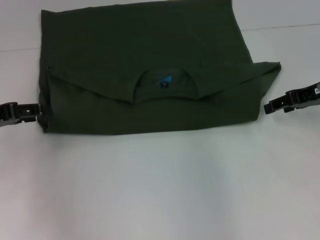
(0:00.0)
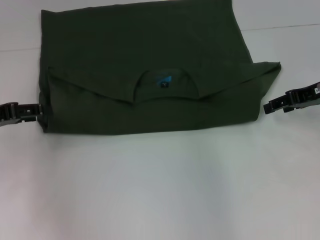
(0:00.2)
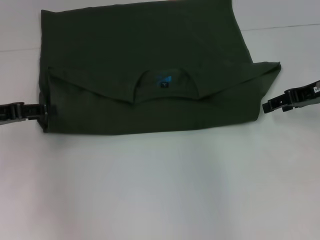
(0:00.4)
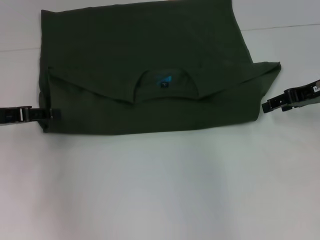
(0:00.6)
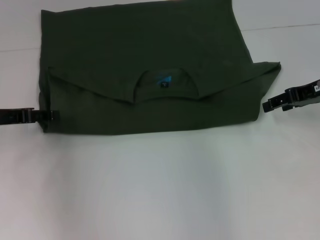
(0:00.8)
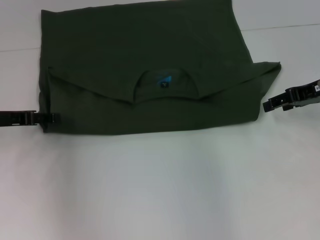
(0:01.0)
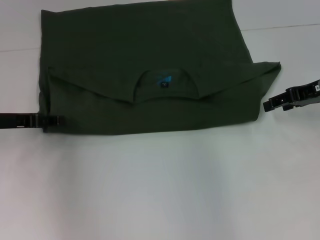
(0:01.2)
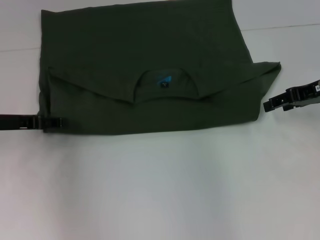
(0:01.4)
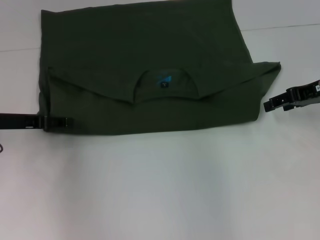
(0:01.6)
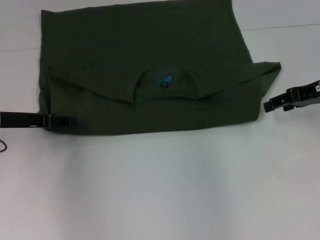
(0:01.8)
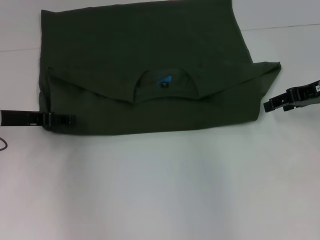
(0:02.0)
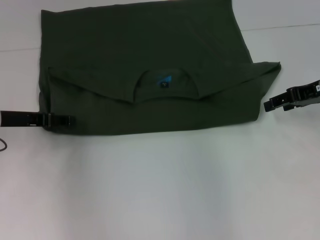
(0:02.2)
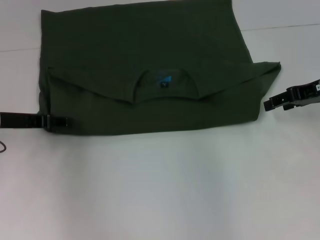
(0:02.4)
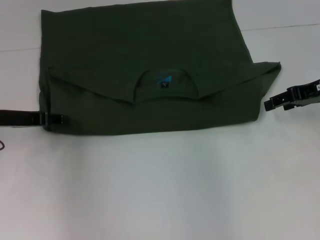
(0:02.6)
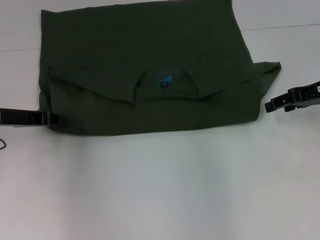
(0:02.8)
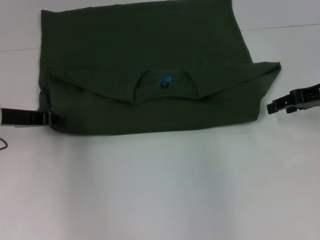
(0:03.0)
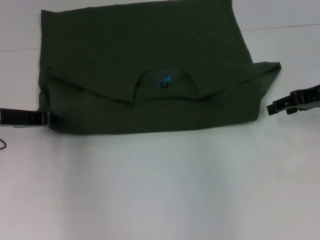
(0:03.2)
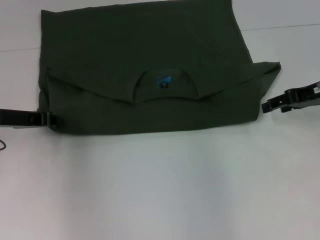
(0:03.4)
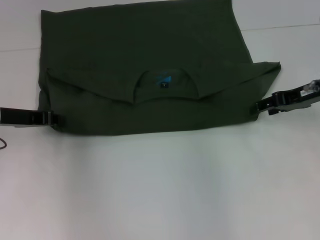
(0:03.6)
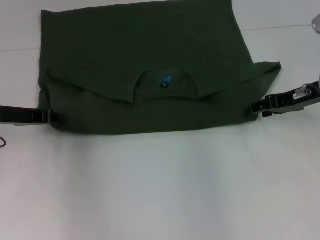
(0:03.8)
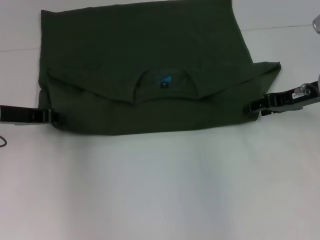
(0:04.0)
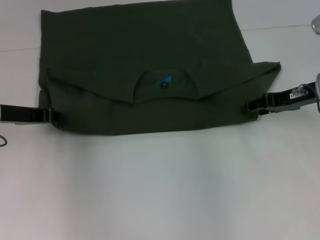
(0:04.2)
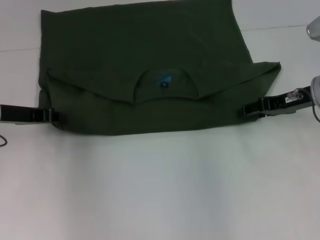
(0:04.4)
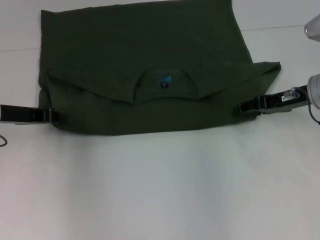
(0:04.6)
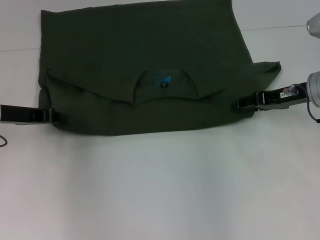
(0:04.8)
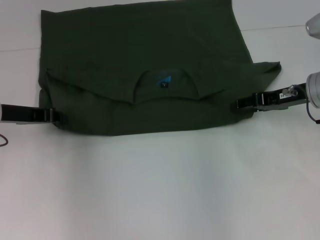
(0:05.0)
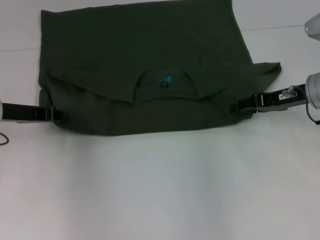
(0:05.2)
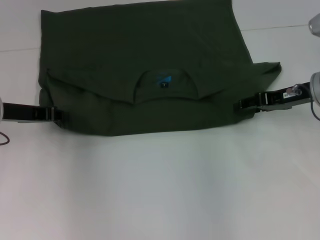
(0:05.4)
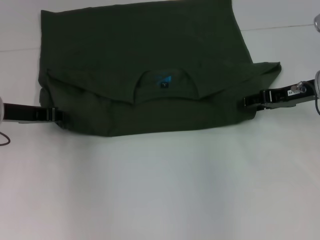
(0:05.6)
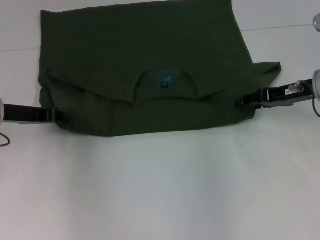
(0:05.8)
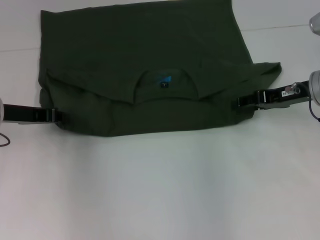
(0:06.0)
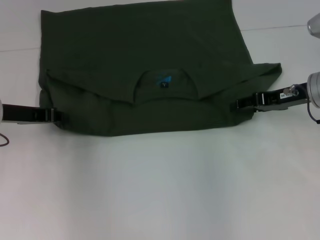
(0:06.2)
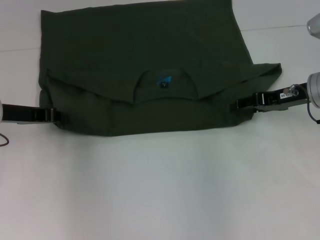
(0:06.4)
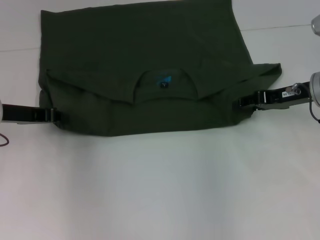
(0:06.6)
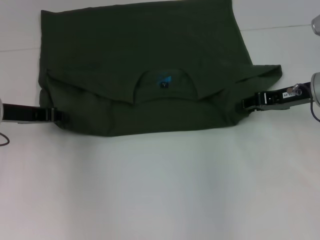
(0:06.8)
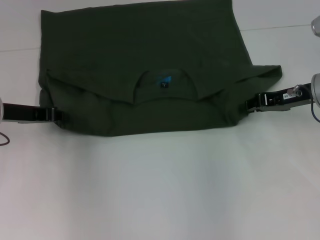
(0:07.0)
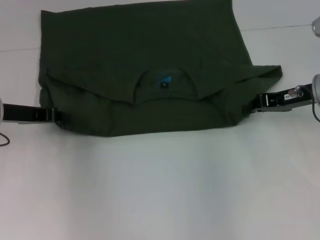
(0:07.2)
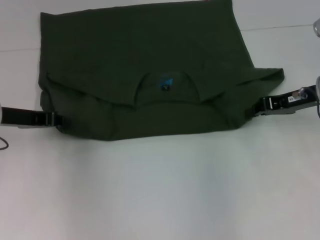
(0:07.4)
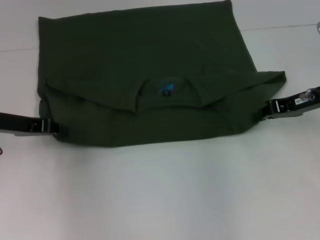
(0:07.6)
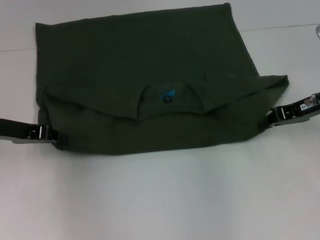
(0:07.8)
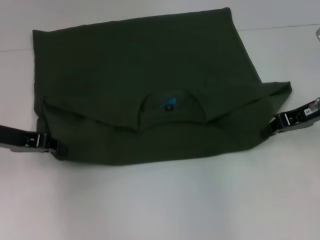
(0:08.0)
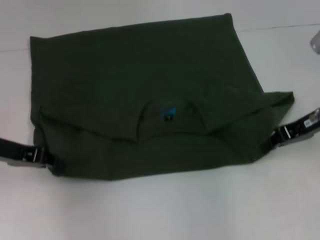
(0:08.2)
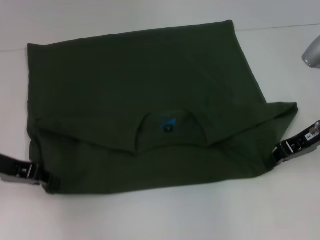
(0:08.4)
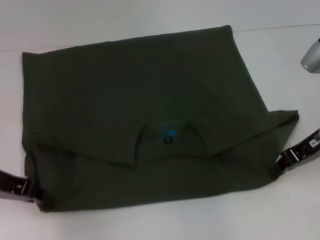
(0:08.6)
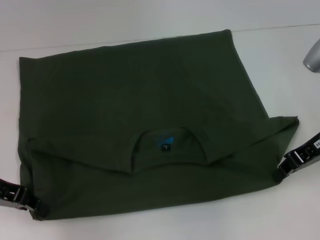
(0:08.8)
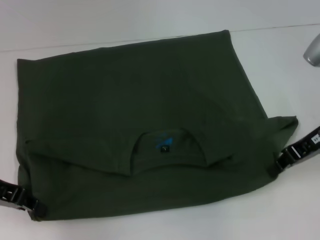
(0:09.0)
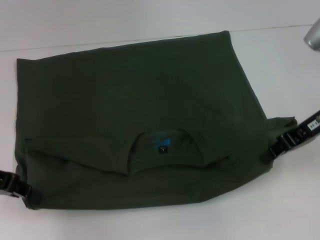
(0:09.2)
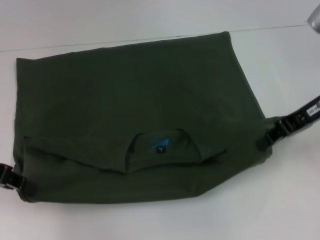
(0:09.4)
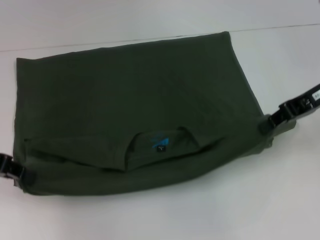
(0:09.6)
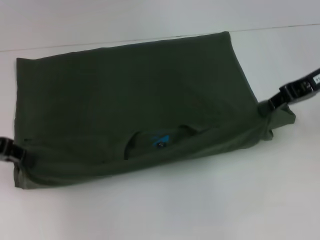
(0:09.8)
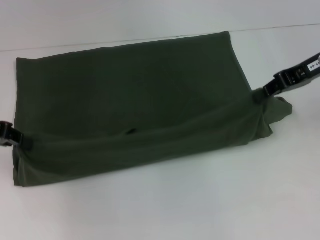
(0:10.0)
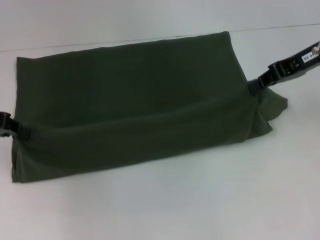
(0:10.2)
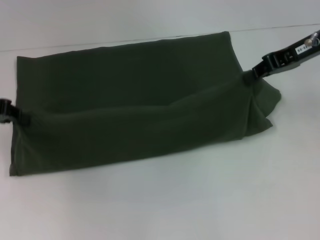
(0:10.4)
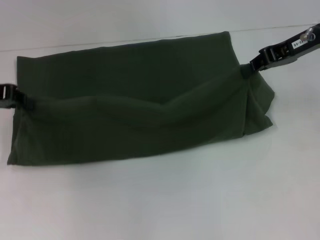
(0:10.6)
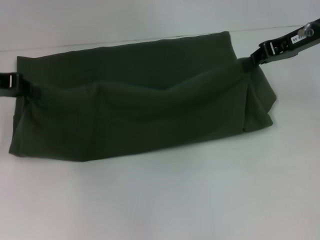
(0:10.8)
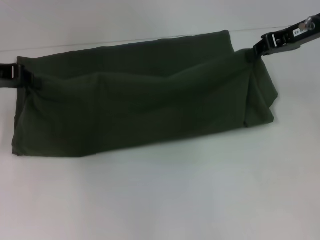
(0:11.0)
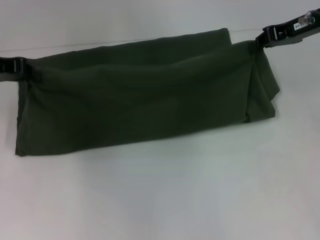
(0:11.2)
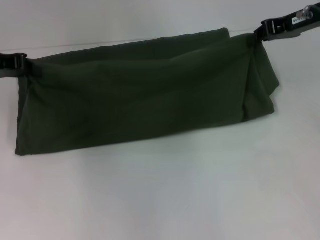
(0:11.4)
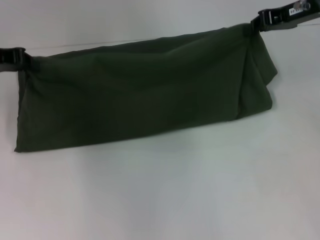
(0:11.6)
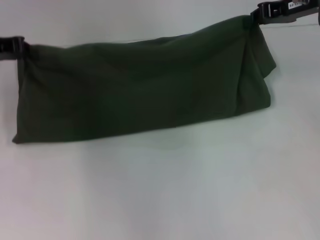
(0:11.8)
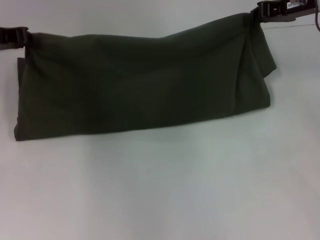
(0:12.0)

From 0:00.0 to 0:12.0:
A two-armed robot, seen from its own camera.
Step, from 0:00.0 to 0:09.2: Pull the clothes with your left hand.
Step, from 0:00.0 to 0:09.2: Pull the clothes with your right hand.
From 0:00.0 to 0:01.6: The left gripper changes place by about 5 cm.
From 0:01.6 to 0:03.0: The left gripper closes.
From 0:03.0 to 0:04.4: The right gripper changes place by some 5 cm.
From 0:04.4 to 0:06.0: Both grippers stay put.
From 0:06.0 to 0:07.6: The right gripper closes.
From 0:07.6 to 0:09.0: The left gripper goes about 5 cm backward.
From 0:09.0 to 0:10.4: The left gripper shifts approximately 5 cm forward. The right gripper moves upward and forward, some 10 cm.
From 0:10.4 to 0:12.0: The left gripper shifts about 5 cm forward.

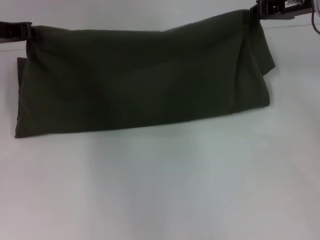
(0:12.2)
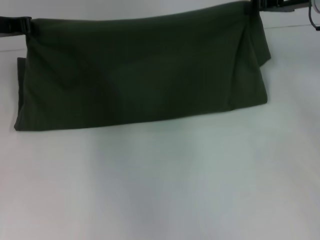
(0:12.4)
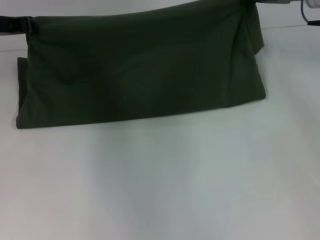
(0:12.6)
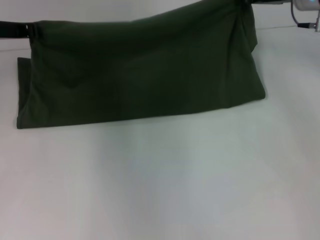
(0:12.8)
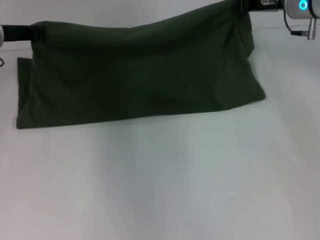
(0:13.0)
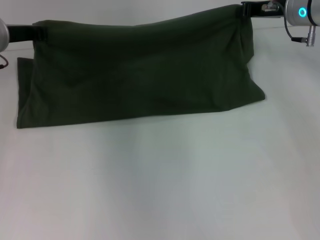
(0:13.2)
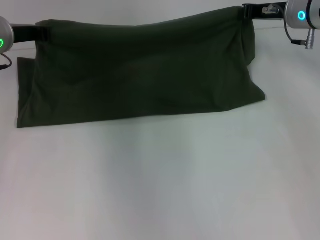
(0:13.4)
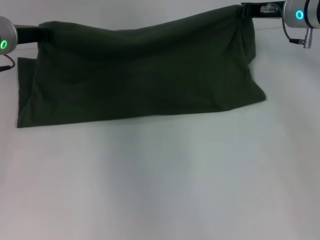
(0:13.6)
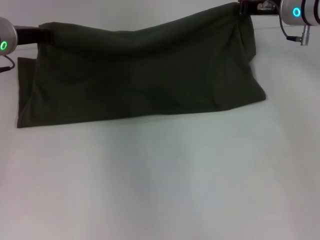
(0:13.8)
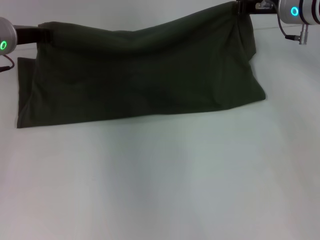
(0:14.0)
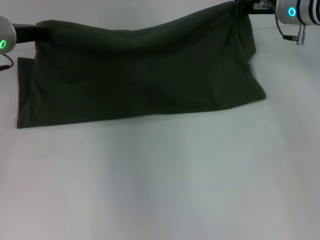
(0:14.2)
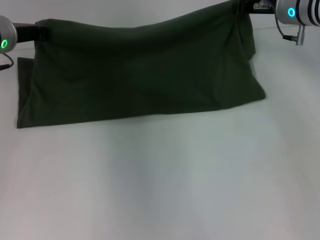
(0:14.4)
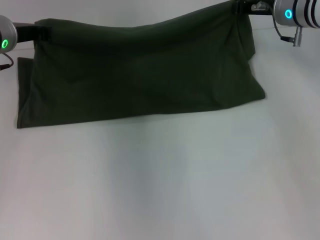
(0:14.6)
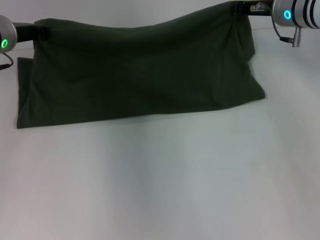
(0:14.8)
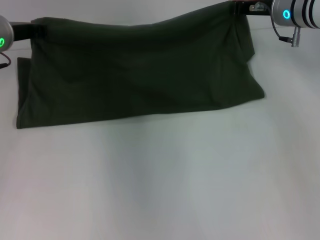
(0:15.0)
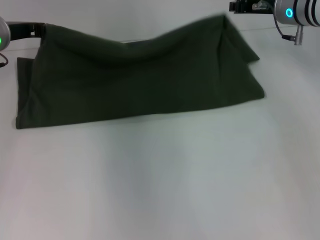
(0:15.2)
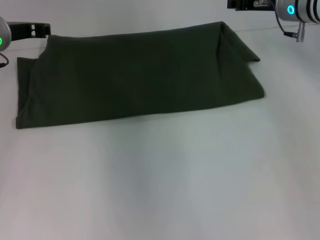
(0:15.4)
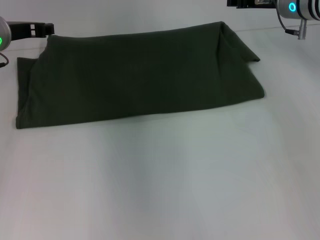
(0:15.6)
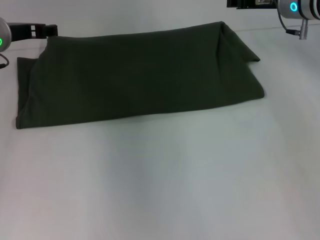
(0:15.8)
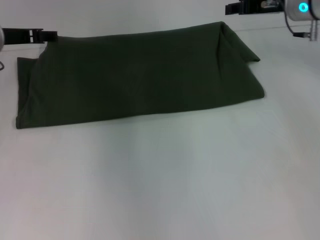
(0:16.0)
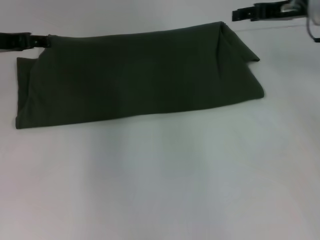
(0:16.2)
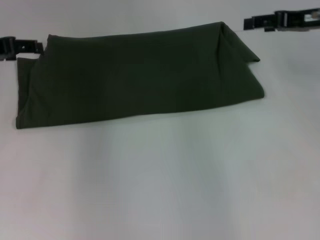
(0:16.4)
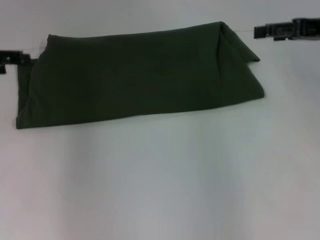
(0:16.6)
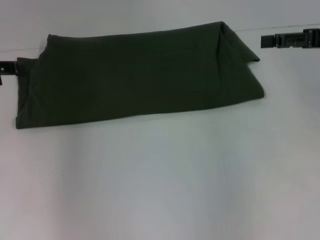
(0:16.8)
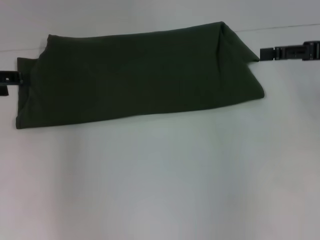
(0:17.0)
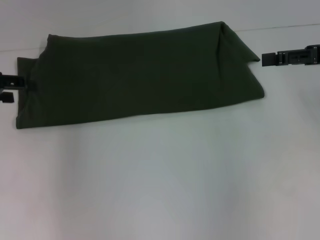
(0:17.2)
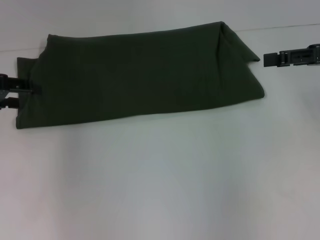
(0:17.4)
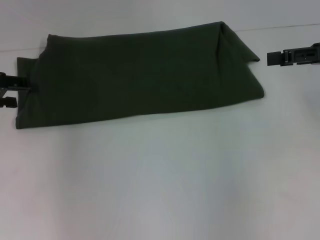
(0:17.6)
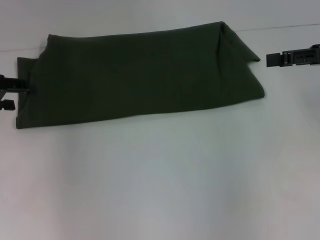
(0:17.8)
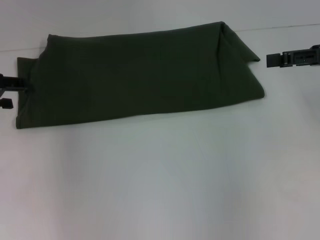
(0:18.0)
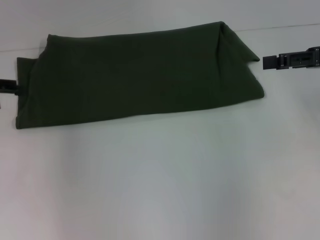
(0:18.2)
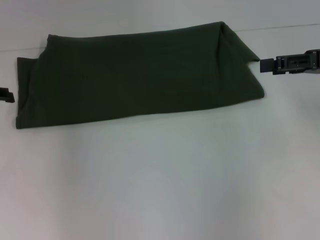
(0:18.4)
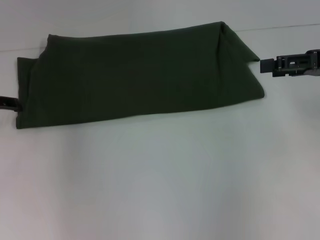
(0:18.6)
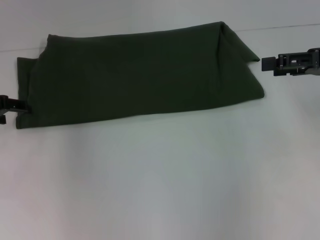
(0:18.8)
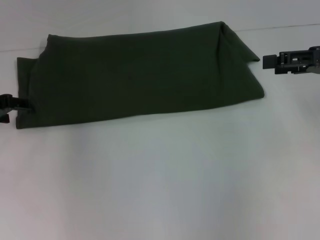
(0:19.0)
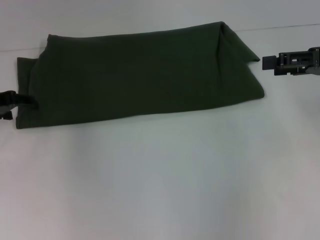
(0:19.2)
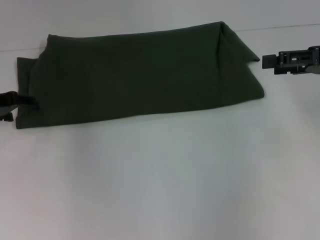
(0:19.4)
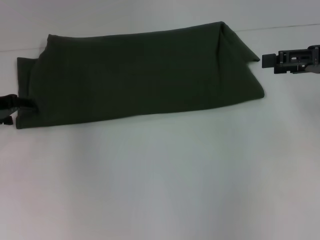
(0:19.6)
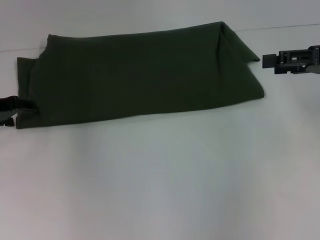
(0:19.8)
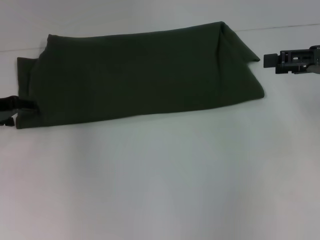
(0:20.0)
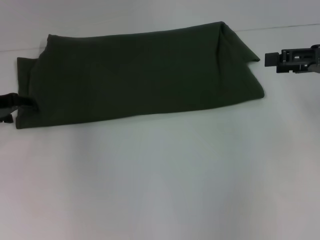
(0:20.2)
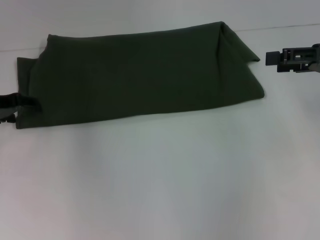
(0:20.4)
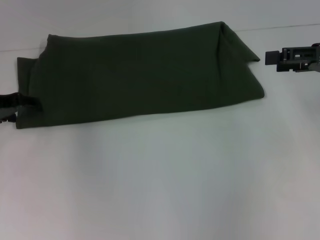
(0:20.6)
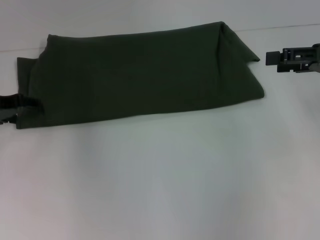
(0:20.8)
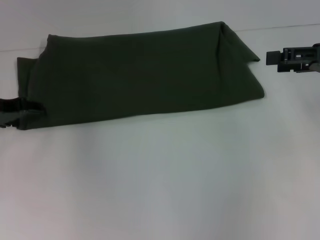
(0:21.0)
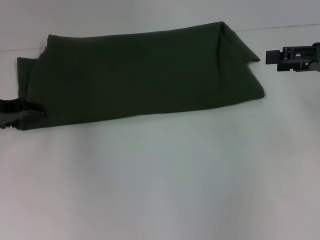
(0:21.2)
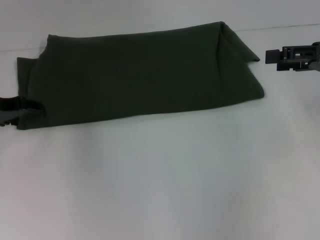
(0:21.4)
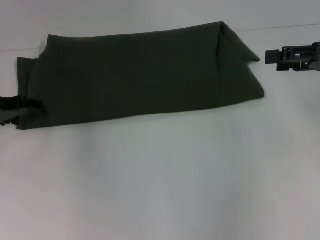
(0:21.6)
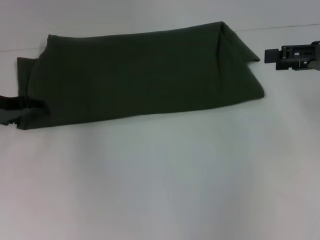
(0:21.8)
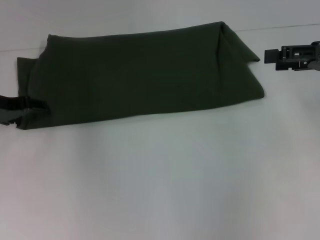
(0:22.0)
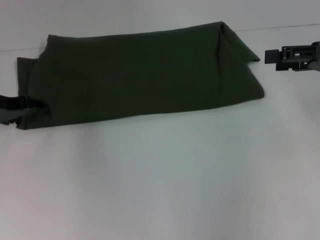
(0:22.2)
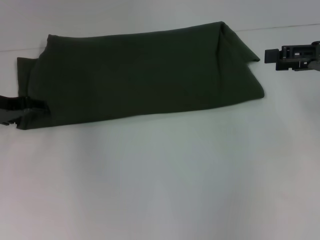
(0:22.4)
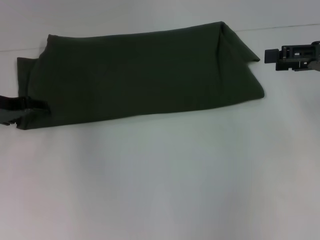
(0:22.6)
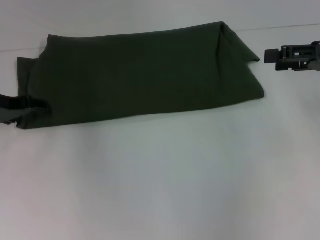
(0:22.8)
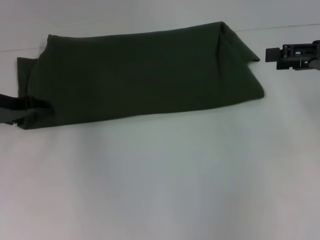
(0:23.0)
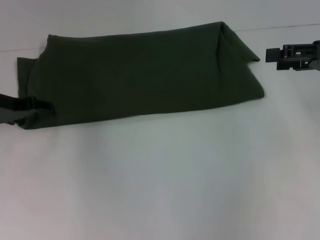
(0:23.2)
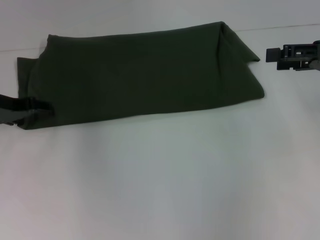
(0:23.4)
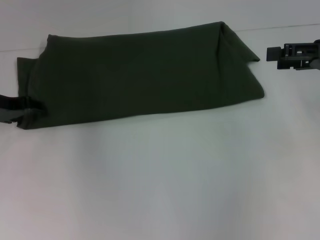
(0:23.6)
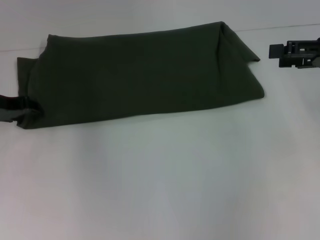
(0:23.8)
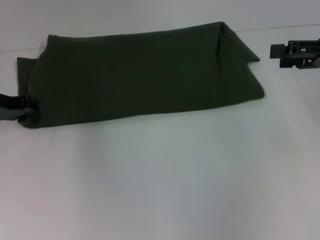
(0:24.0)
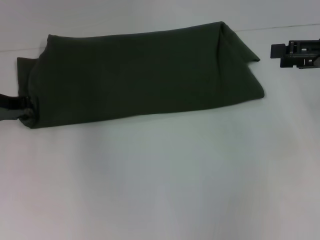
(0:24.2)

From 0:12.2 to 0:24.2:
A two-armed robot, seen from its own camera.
Step, from 0:12.2 to 0:15.4: Fold the clothes with your left hand.
Step, from 0:12.2 to 0:15.4: Fold the clothes with your right hand.
From 0:12.2 to 0:13.8: The right gripper shifts by about 5 cm, while the left gripper changes place by about 5 cm.
From 0:13.8 to 0:15.2: There are only small adjustments of the grippers.
From 0:15.2 to 0:16.6: The left gripper heads to the left and backward, covering some 10 cm, and opens up; the right gripper shifts roughly 15 cm backward and to the right, and opens up.
From 0:16.6 to 0:18.2: The grippers move only a little.
From 0:18.2 to 0:19.8: The left gripper ends up some 5 cm from where it was.
From 0:19.8 to 0:21.2: Neither gripper changes place.
From 0:21.2 to 0:22.6: Both grippers stay about where they are.
